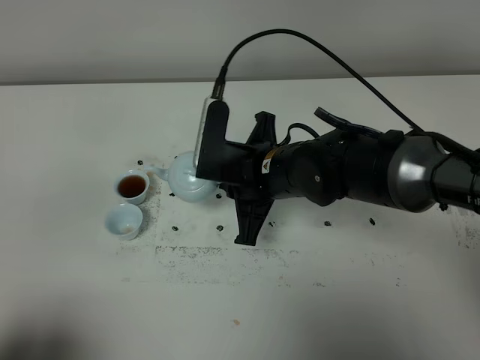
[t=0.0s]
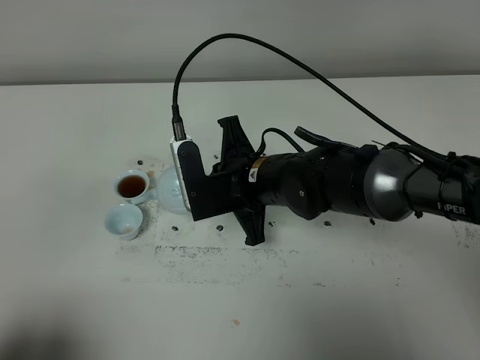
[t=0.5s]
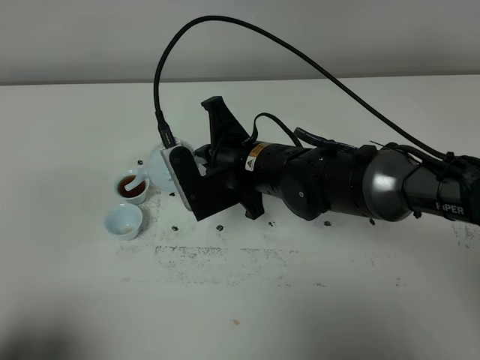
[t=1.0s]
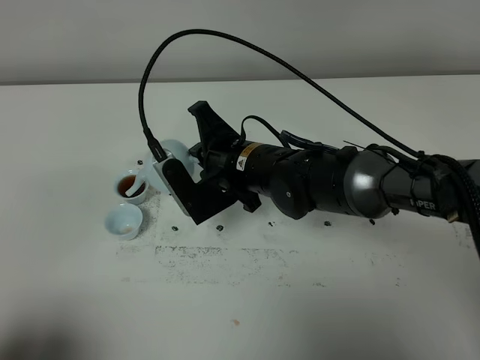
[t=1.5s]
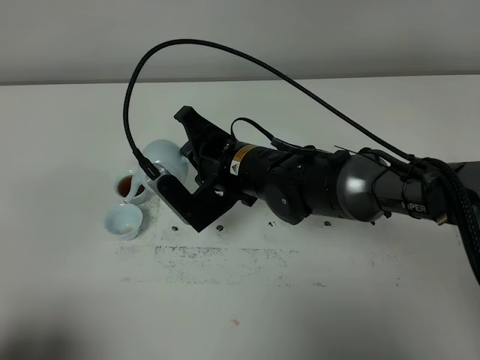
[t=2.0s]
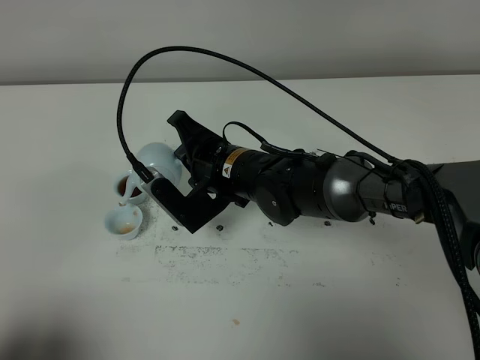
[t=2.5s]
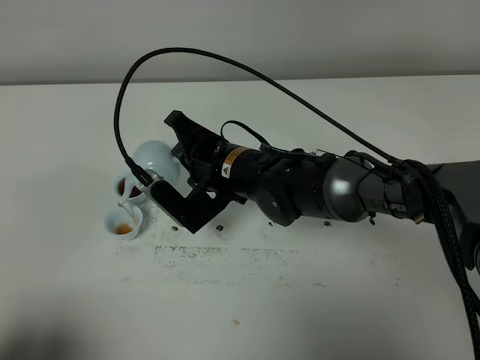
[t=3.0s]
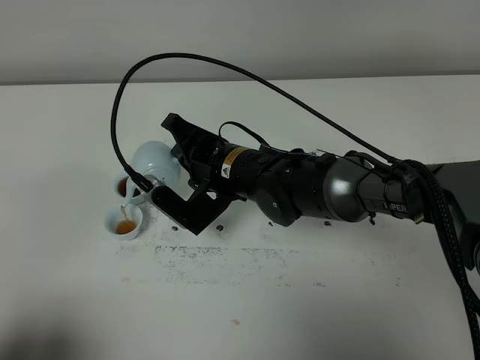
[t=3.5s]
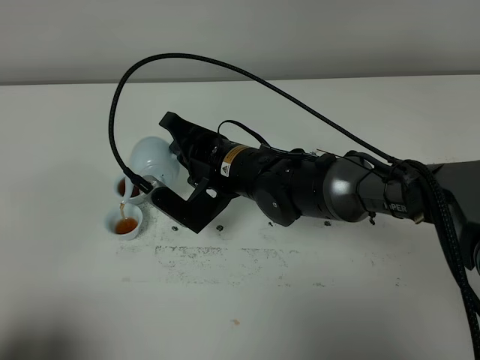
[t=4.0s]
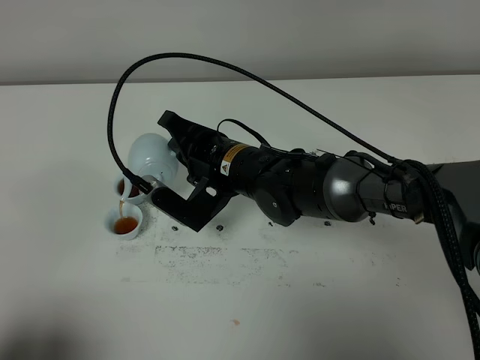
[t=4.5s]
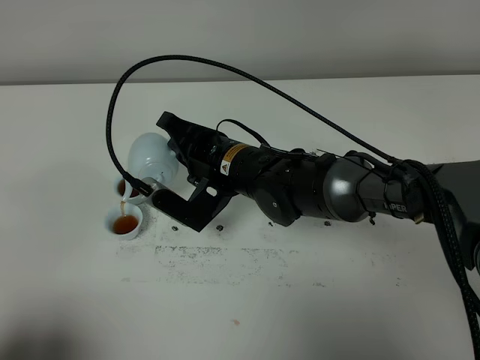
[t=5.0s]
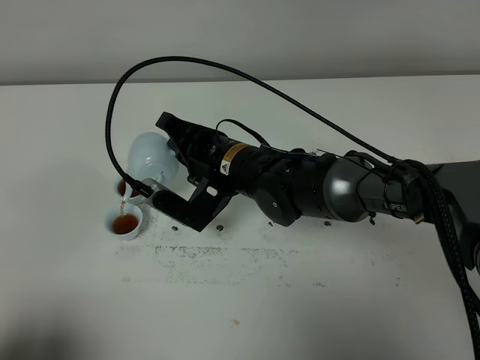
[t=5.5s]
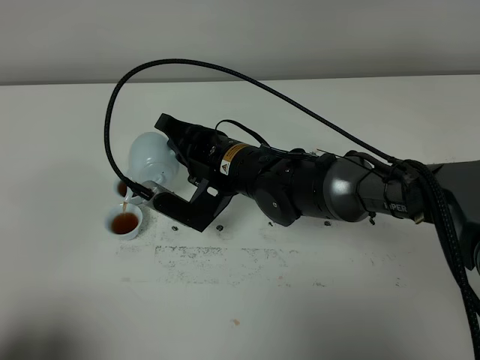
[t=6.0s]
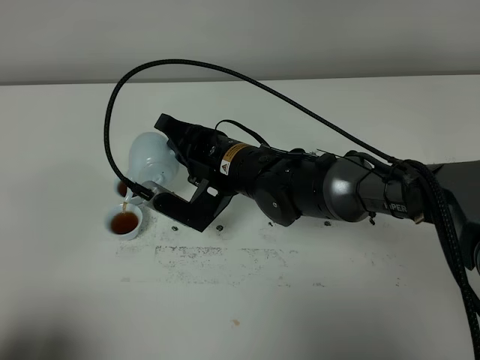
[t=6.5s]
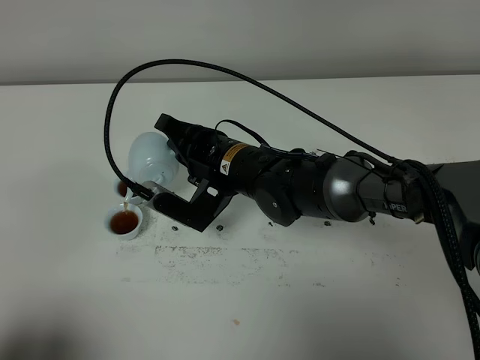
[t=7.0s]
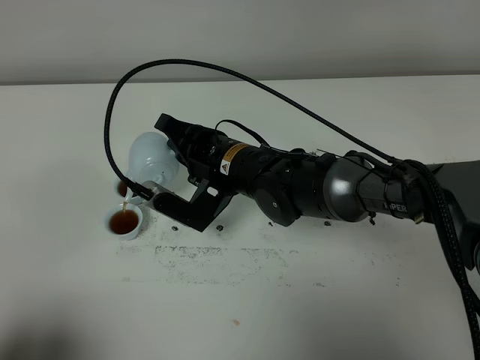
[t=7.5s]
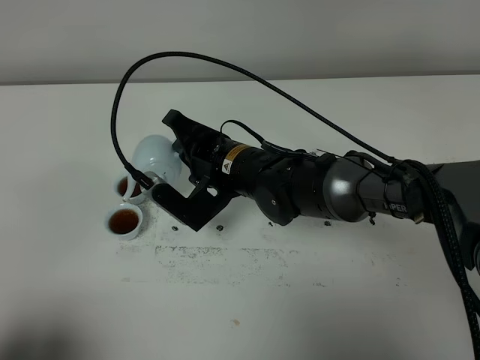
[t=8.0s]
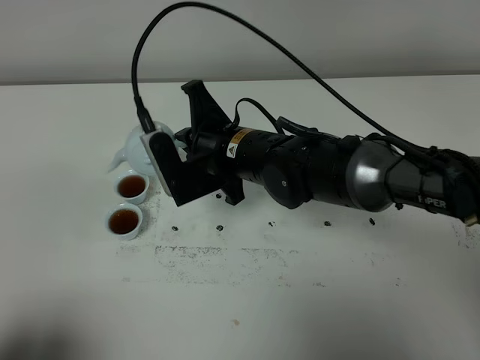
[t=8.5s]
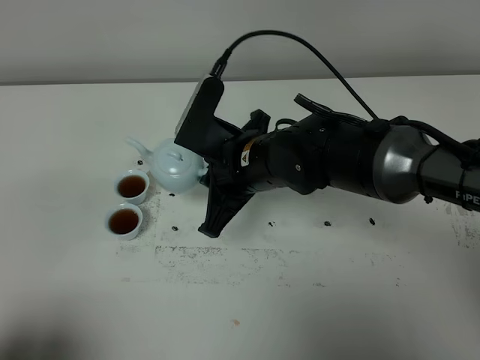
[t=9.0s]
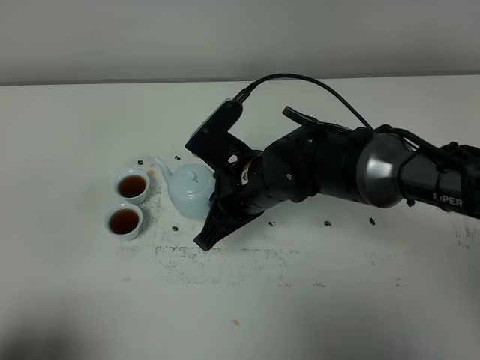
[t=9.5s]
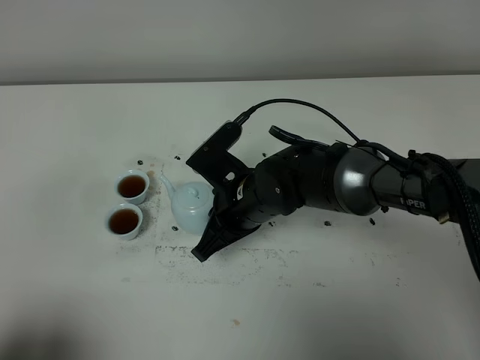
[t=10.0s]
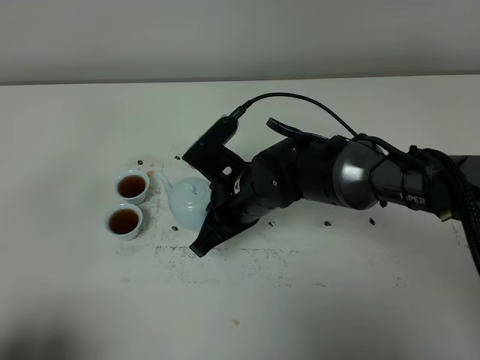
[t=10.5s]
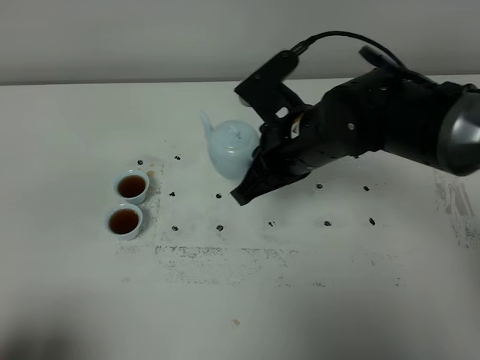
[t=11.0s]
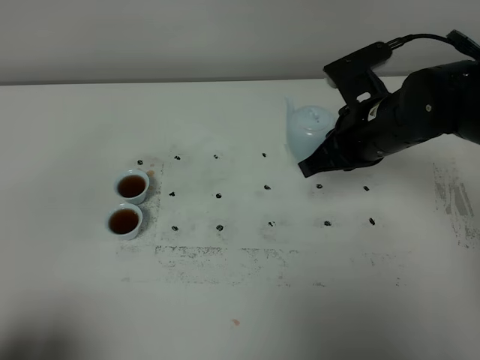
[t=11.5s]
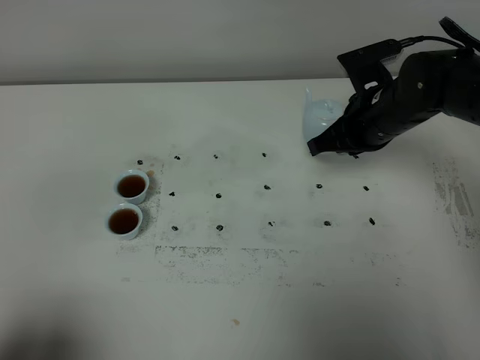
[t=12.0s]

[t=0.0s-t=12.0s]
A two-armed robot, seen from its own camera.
Task of the whole recording: grasp the blue porcelain teapot and pour the tea into the two blue porcelain teacups one by one, put the blue porcelain teapot back in its original place.
Step, t=0.0s to t=8.5s: Pour tea into the teacup with the right gripper.
t=2.0s to t=8.0s: There are only small adjustments of the grippers.
t=10.0s to t=12.0s: The right gripper shifts roughly 20 cm to the right and forward.

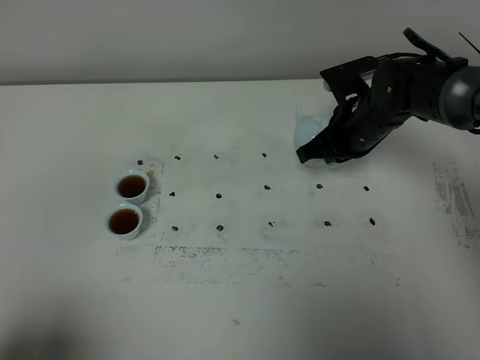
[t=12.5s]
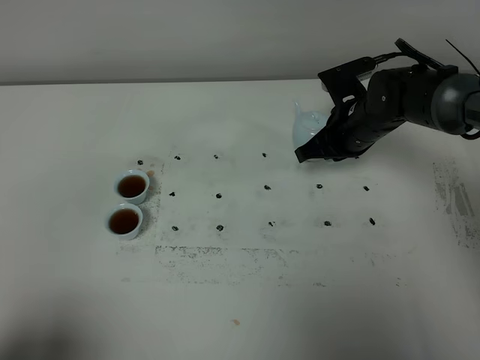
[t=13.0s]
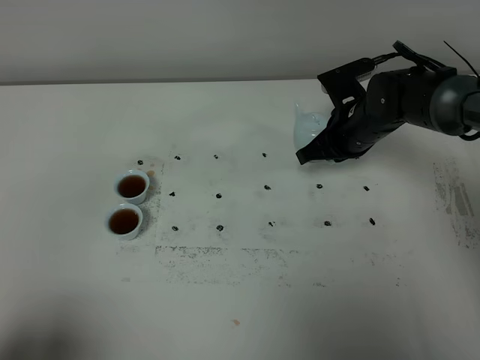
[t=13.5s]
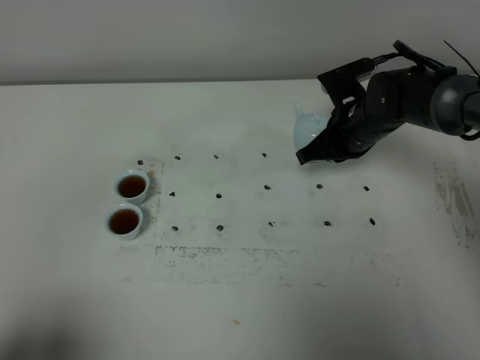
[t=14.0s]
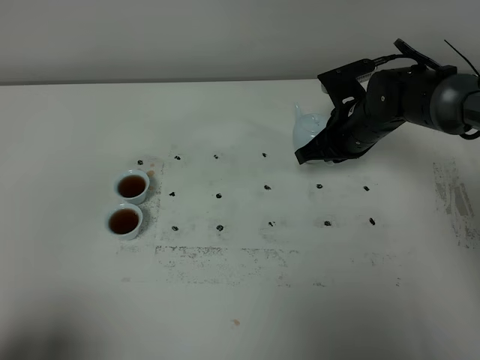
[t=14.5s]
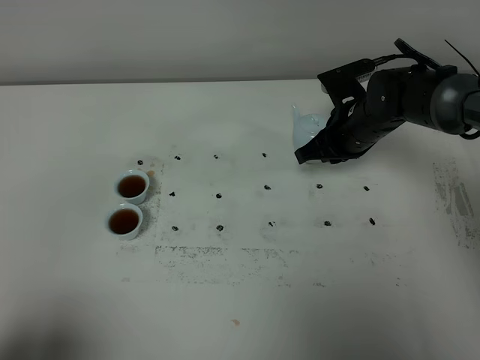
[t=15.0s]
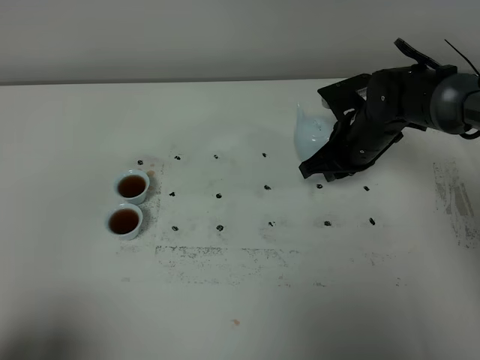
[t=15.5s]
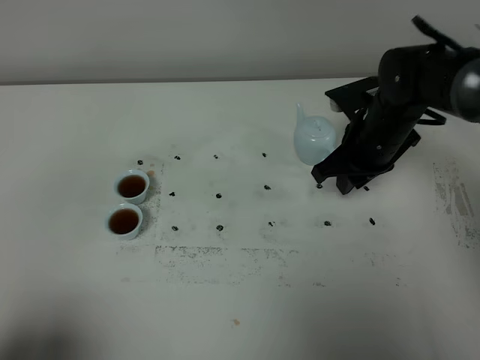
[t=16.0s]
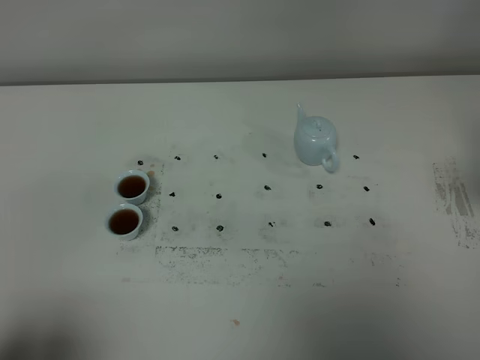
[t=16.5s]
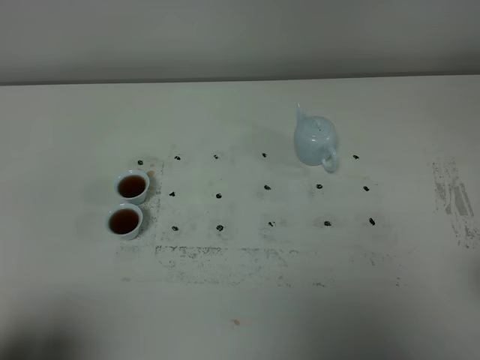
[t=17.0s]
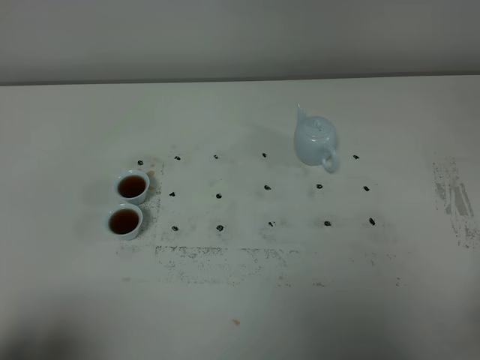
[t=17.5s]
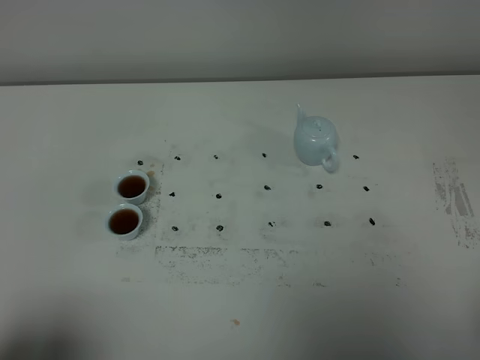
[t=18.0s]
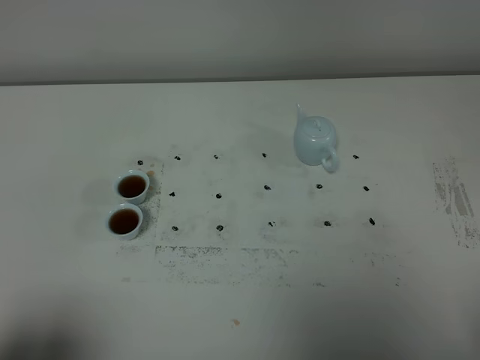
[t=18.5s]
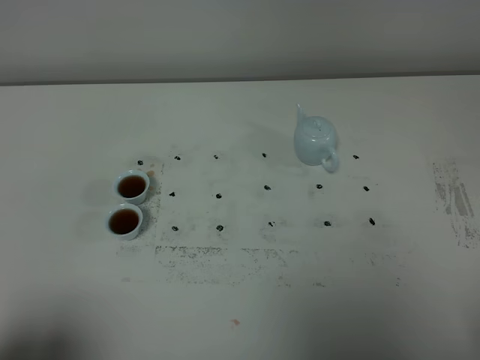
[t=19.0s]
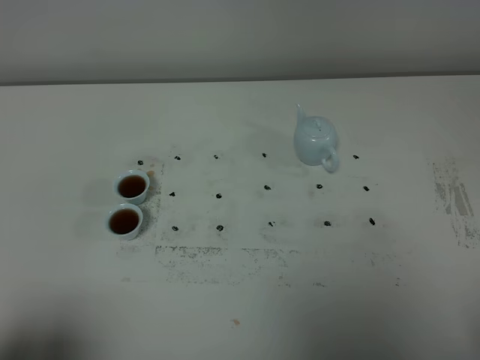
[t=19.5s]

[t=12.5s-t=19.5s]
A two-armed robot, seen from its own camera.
Task of the whole recording: grasp the blue porcelain teapot and pour the tea into the two blue porcelain teacups one by one, put the blue porcelain teapot back in its original place.
t=12.5s to t=14.5s: There are only small adjustments of the grippers.
t=14.5s to t=16.0s: The right gripper moves about 5 cm.
t=16.0s to t=17.5s: The right gripper is displaced backward by some 35 cm.

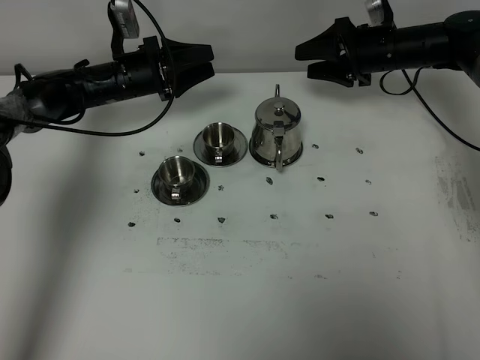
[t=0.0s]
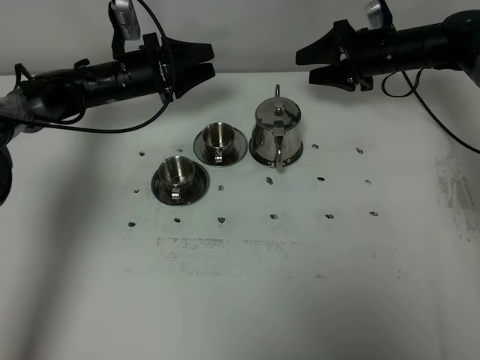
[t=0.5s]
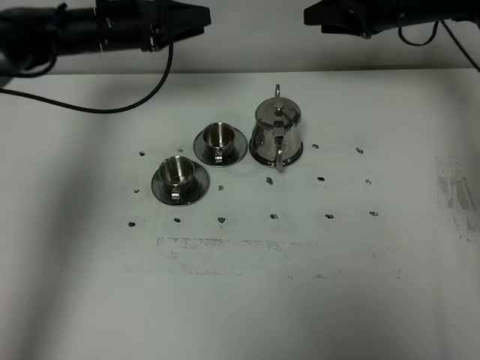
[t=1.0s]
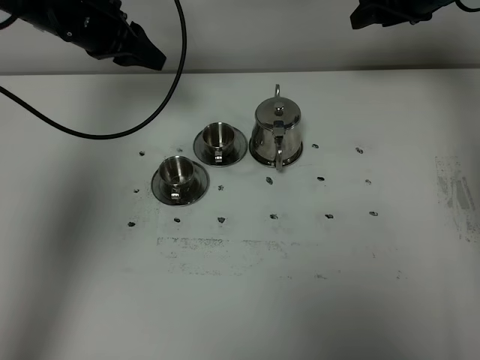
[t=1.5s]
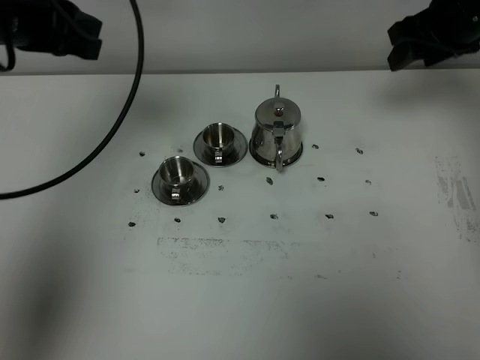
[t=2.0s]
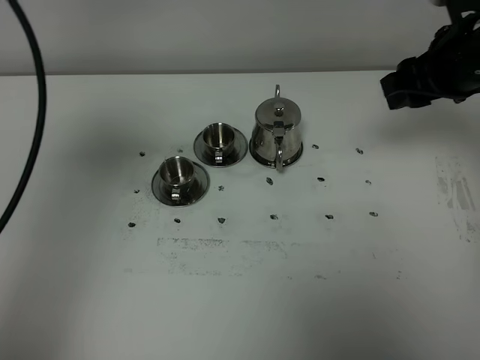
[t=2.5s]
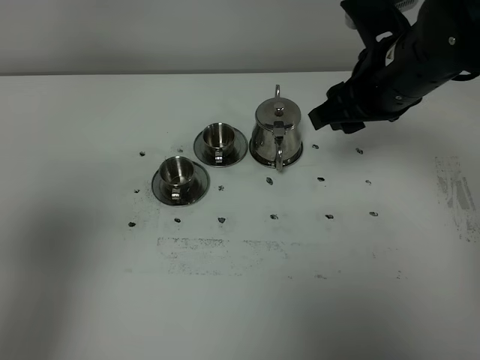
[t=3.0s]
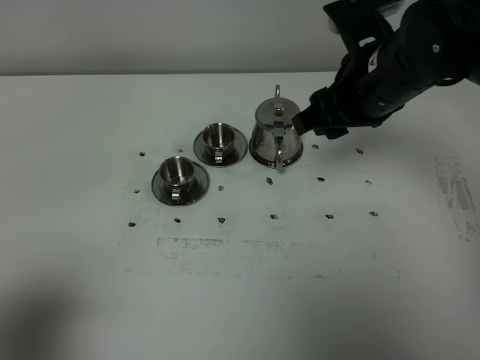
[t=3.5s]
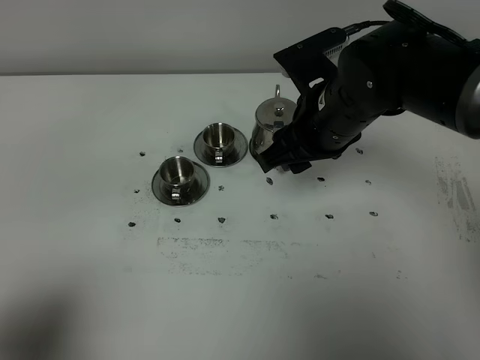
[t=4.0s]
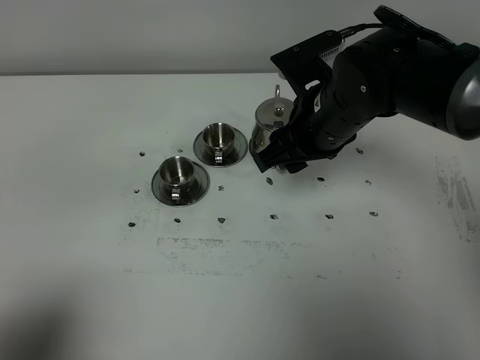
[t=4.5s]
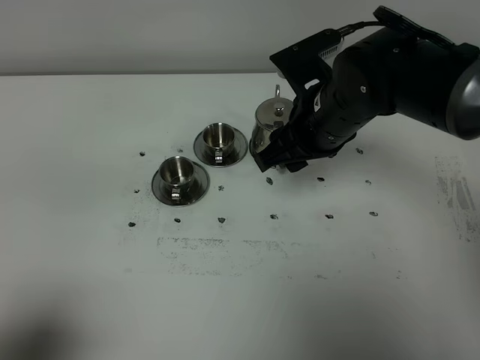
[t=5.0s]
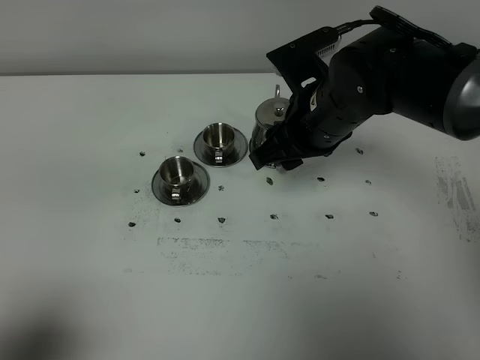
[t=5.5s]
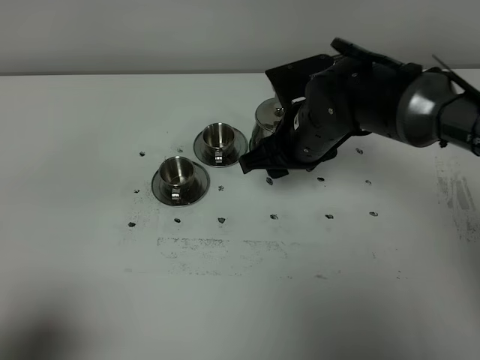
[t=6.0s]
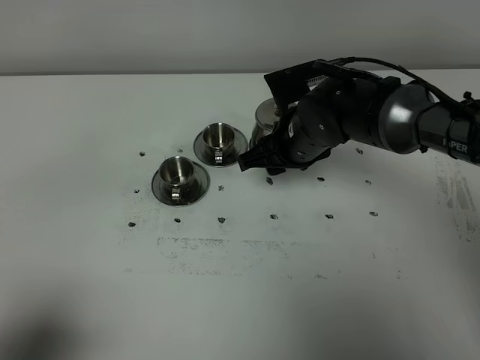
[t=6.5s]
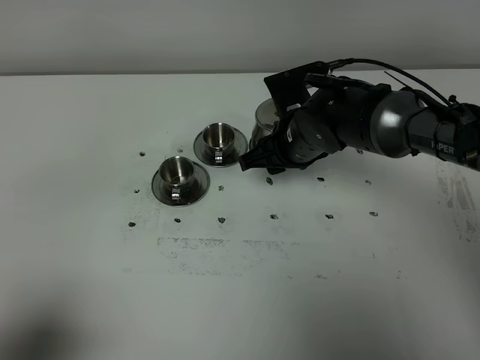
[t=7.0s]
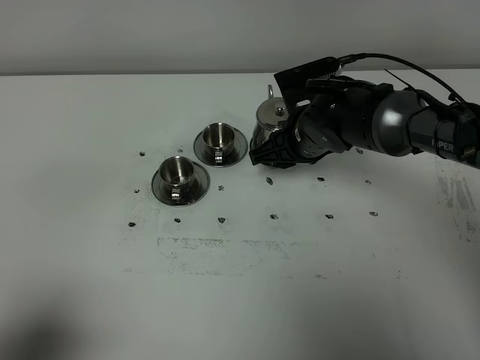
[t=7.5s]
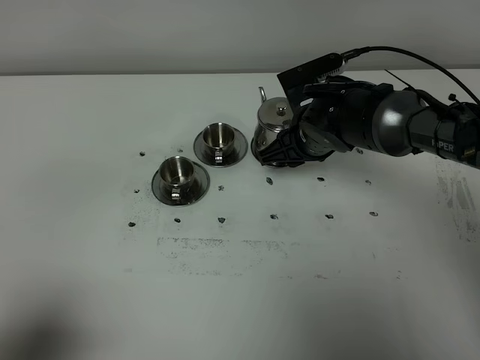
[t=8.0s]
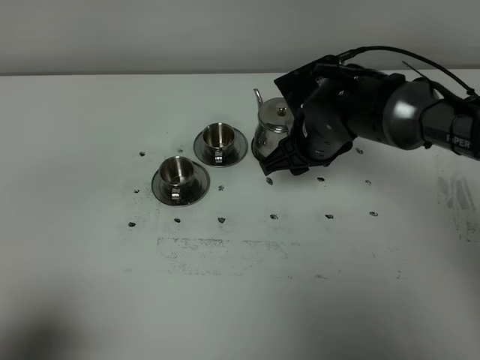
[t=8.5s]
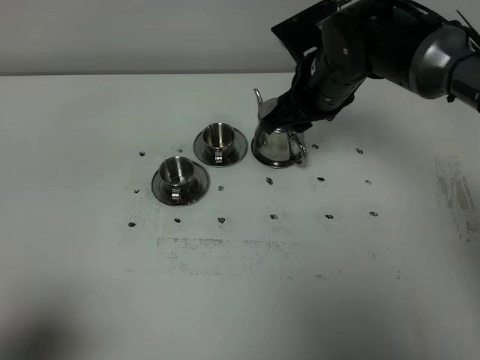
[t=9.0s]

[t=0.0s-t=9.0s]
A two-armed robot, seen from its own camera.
Task of the whole recording: grasp the stainless steel teapot and pour the tea into the two stainless steel teacups one by one, put the stainless steel teapot back in its original place.
t=0.0s to t=2.0s: The right gripper shifts approximately 15 cm upward and backward. Meanwhile the left gripper is displaced upward and backward by some 30 cm, and closes.
t=2.0s to t=4.5s: The right gripper heads to the left and backward, covering roughly 20 cm, while the left gripper heads backward, covering approximately 35 cm.
t=4.5s to t=7.0s: The right gripper travels downward by roughly 10 cm.
t=7.0s to t=9.0s: The right gripper goes some 10 cm upward.
